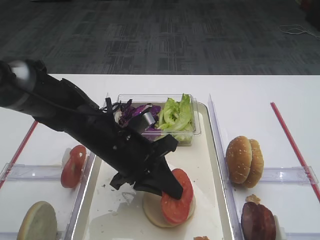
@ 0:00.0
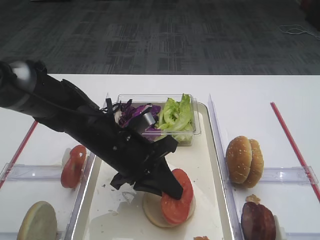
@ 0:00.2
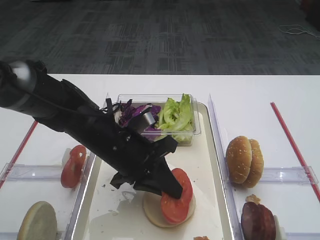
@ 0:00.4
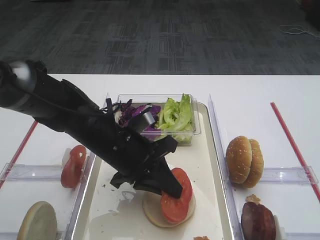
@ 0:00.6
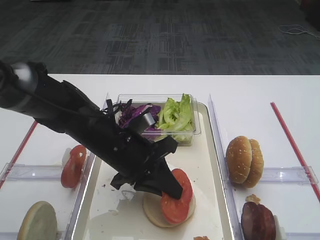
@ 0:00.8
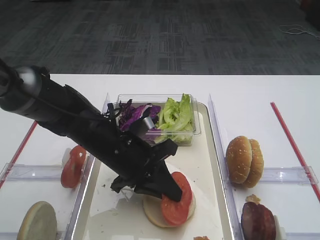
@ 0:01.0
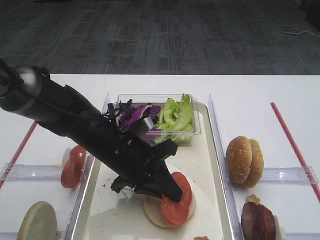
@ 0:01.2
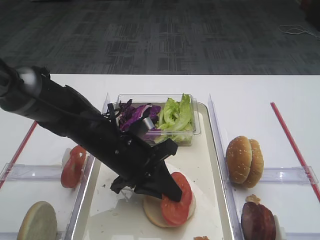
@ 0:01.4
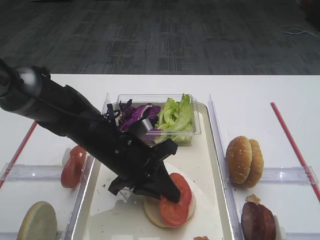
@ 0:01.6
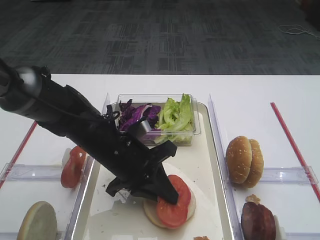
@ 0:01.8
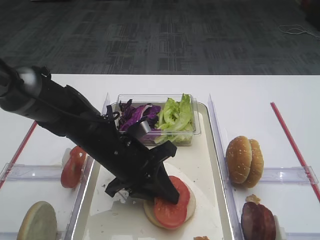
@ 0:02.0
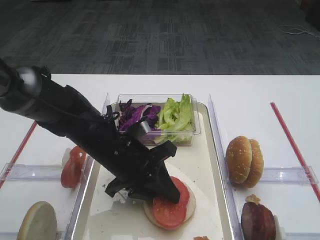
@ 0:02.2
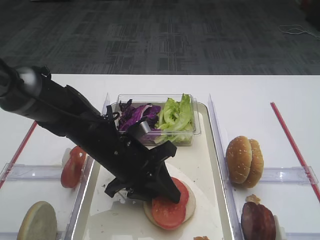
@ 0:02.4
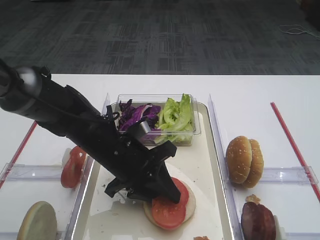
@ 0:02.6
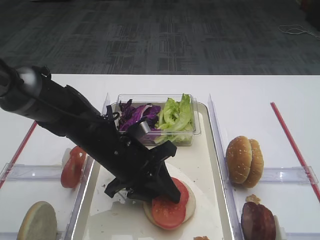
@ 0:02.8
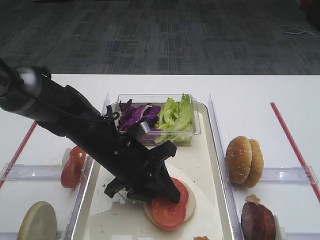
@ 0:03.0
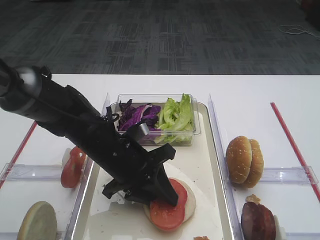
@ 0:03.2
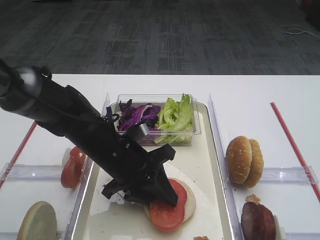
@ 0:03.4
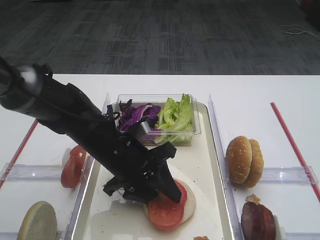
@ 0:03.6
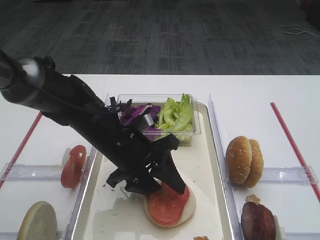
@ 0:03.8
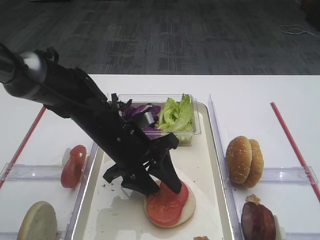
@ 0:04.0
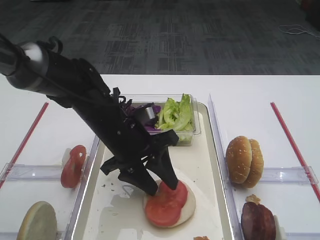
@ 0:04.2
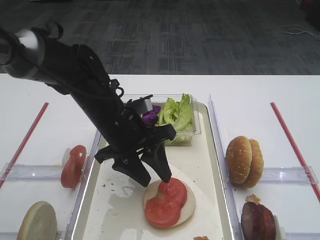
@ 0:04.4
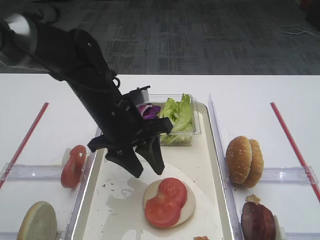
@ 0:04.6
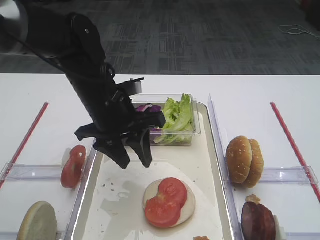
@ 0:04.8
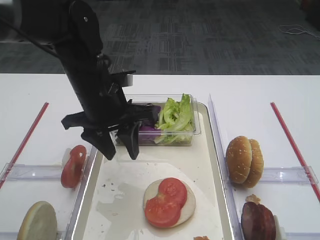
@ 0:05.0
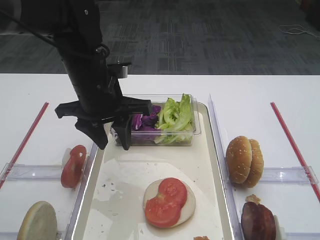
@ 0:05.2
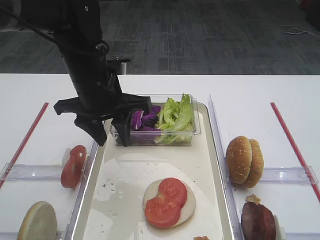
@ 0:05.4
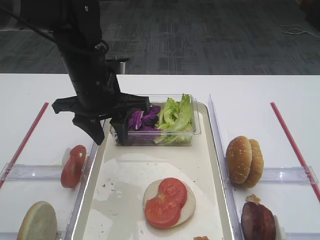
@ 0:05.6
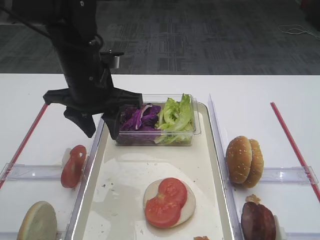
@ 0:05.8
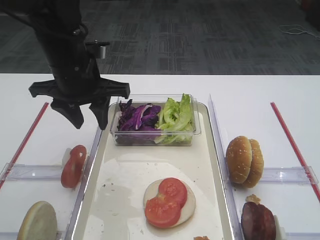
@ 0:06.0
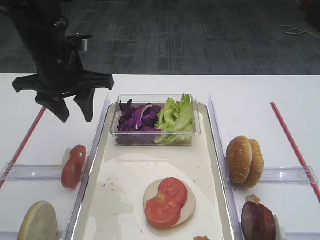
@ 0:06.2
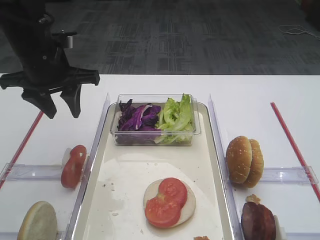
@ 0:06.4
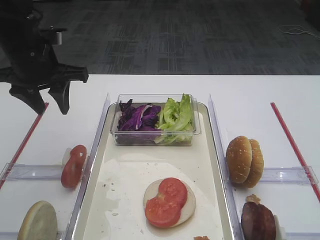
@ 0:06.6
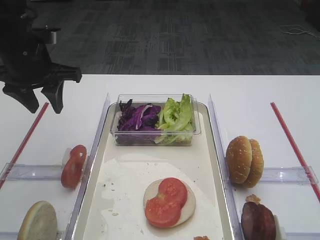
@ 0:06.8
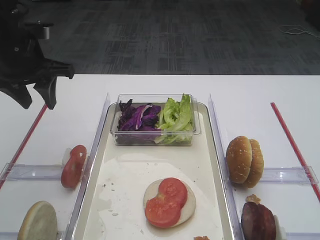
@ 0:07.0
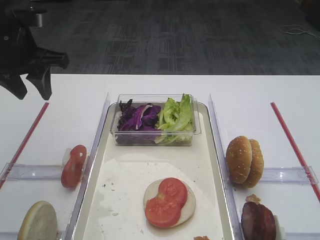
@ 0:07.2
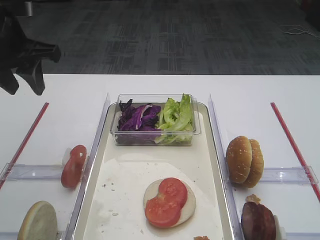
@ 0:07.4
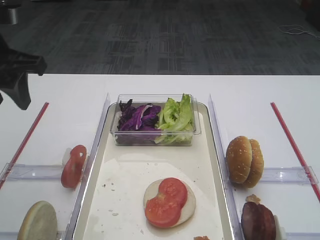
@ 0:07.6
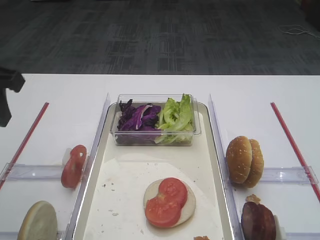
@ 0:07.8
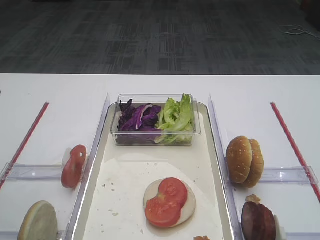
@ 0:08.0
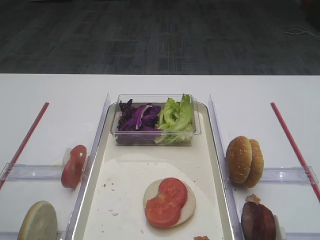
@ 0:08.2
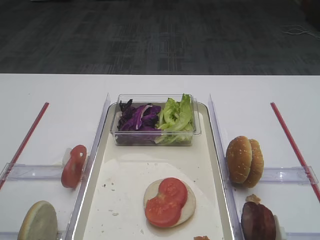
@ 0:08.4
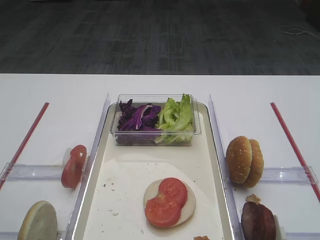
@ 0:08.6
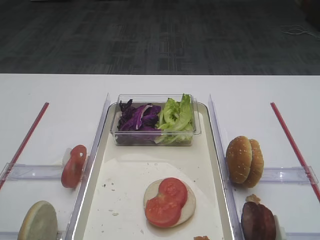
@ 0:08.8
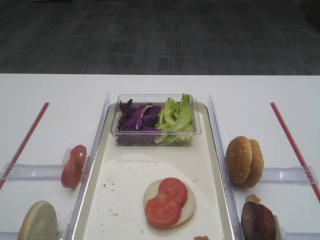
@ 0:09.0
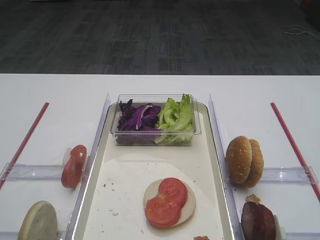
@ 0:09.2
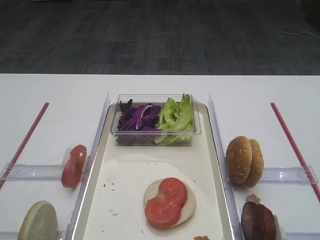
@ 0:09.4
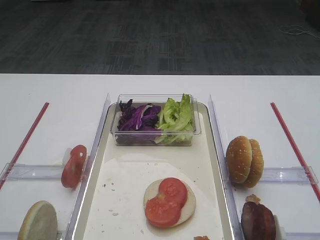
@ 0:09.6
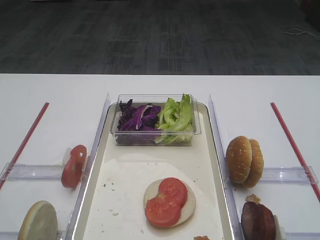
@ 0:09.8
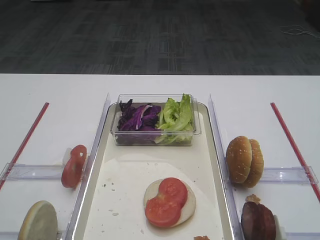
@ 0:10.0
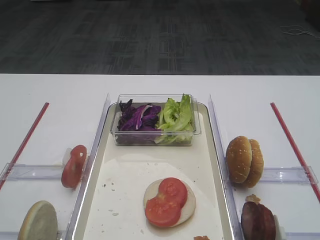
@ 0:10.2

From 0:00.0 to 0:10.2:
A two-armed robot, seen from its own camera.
Step, from 0:00.0 to 0:04.6: Place the tomato slice on the bread slice with the left gripper.
From 0:00.0 to 0:01.4: Both grippers stay put.
From 0:01.4 to 0:03.0: The left gripper opens.
From 0:03.0 to 0:04.4: The left gripper moves approximately 5 cm, and opens.
From 0:04.4 to 0:05.8: The left gripper is displaced upward by approximately 10 cm.
From 0:05.8 to 0:07.2: The left gripper heads to the left, covering some 10 cm.
From 0:07.2 to 0:08.8: The left gripper travels backward by approximately 25 cm.

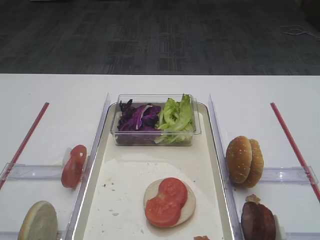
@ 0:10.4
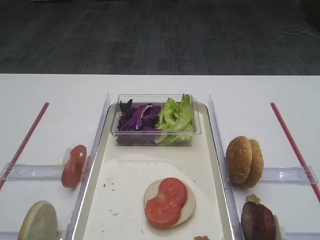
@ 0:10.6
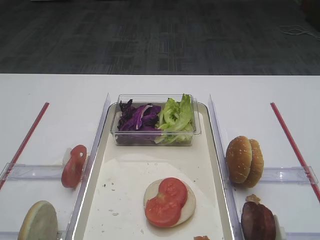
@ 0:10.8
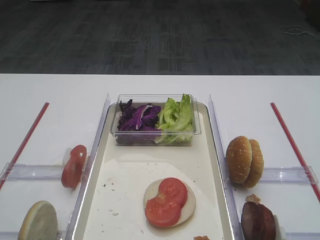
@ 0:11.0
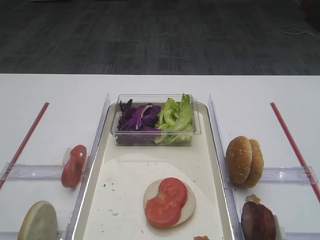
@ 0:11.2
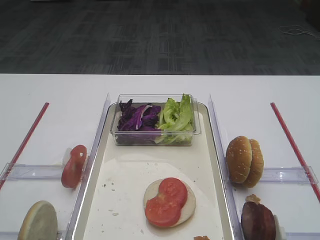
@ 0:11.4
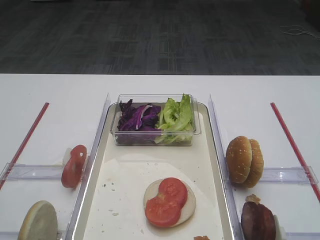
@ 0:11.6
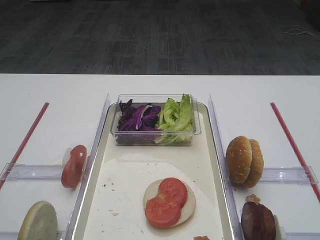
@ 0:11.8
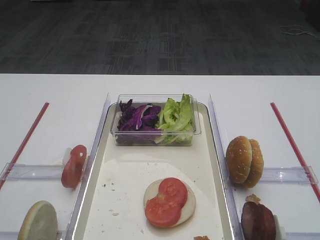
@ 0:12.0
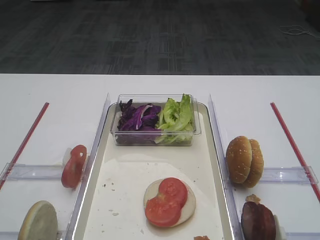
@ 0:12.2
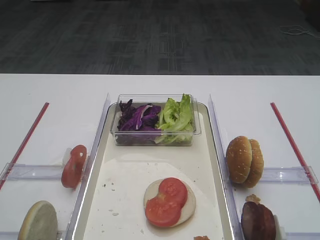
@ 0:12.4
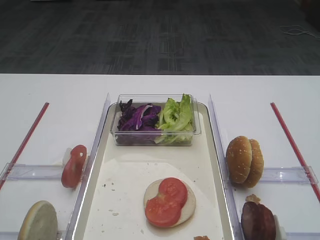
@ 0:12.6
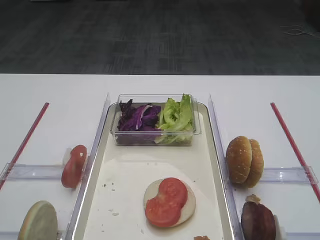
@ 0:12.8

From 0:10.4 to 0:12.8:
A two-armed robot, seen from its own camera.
From 0:10.4 to 0:12.8: The two grippers keep their place.

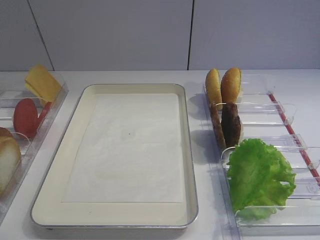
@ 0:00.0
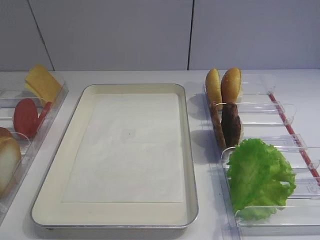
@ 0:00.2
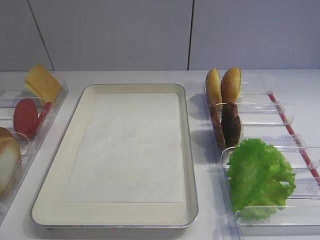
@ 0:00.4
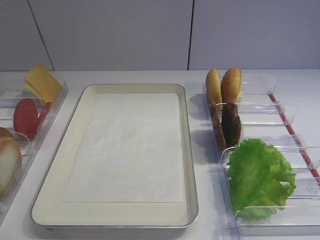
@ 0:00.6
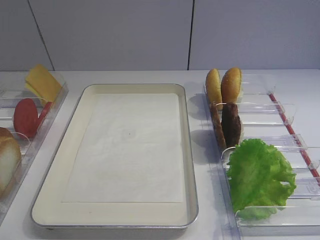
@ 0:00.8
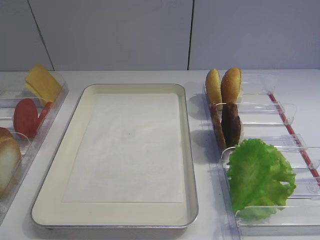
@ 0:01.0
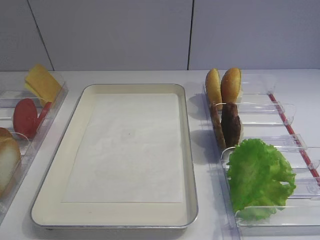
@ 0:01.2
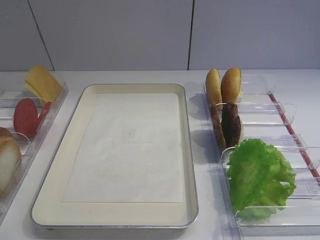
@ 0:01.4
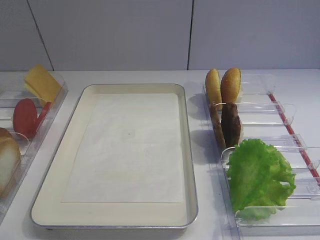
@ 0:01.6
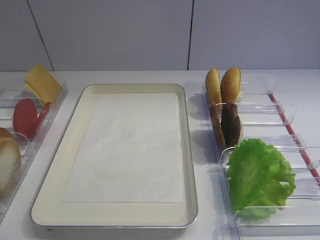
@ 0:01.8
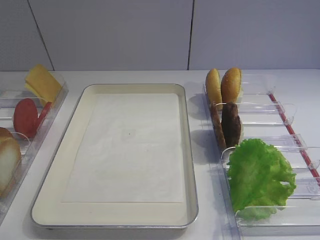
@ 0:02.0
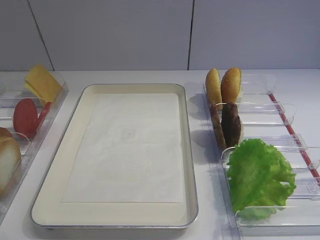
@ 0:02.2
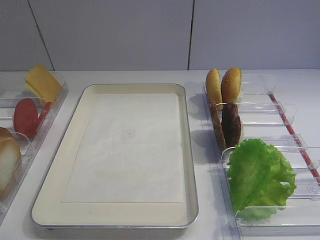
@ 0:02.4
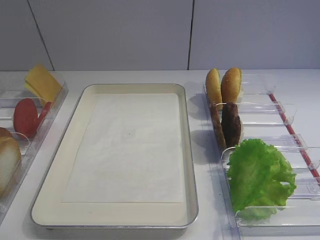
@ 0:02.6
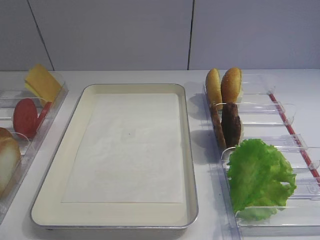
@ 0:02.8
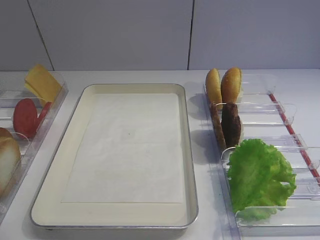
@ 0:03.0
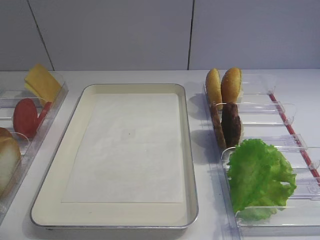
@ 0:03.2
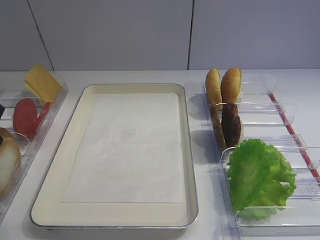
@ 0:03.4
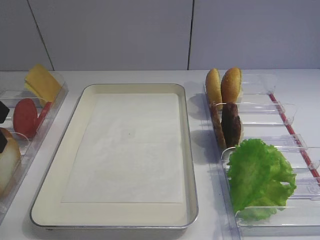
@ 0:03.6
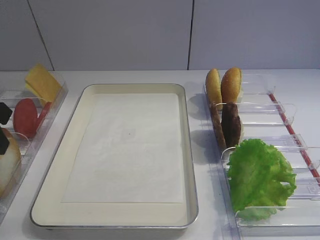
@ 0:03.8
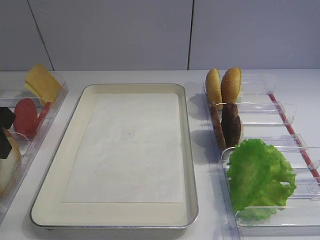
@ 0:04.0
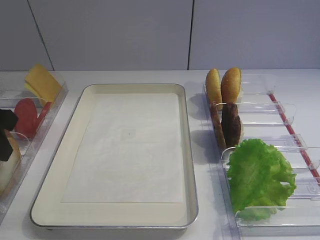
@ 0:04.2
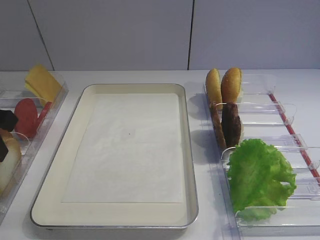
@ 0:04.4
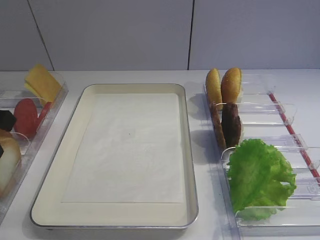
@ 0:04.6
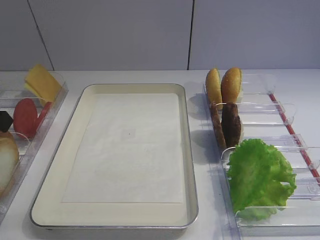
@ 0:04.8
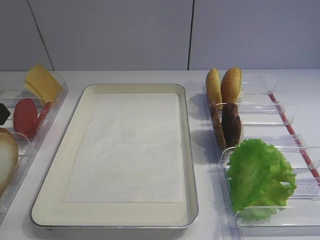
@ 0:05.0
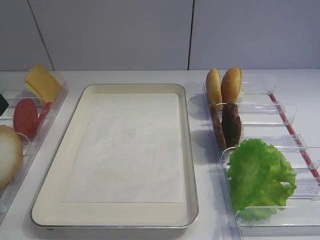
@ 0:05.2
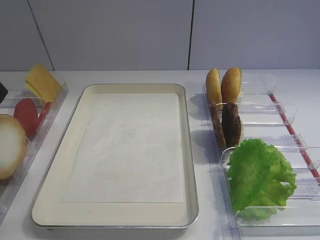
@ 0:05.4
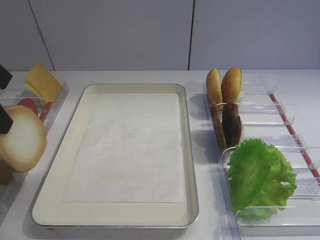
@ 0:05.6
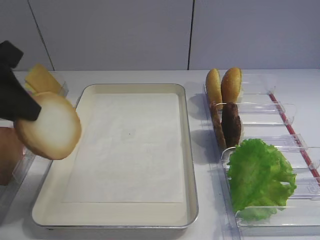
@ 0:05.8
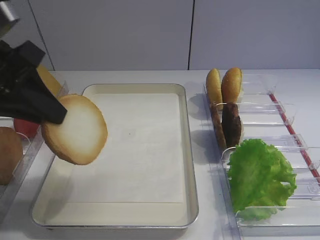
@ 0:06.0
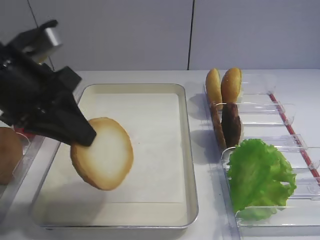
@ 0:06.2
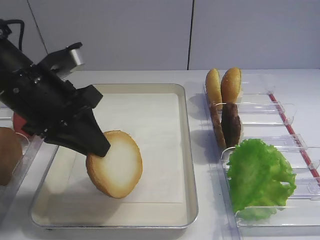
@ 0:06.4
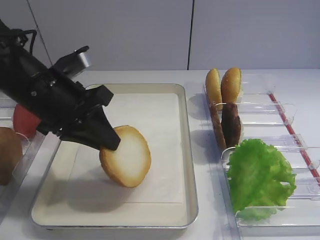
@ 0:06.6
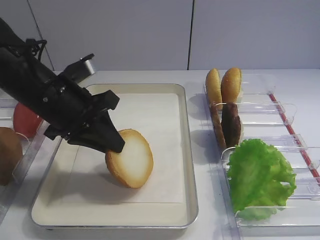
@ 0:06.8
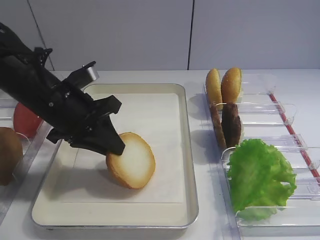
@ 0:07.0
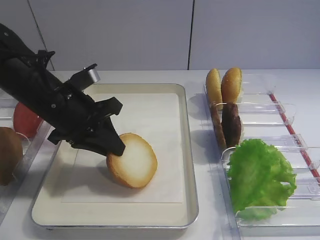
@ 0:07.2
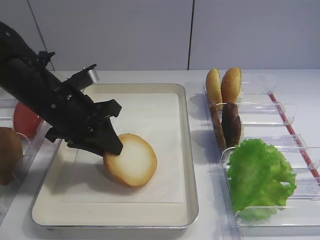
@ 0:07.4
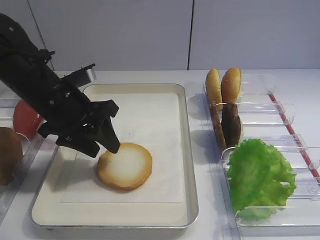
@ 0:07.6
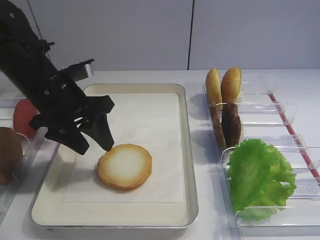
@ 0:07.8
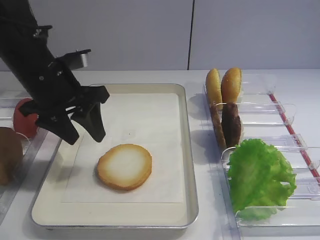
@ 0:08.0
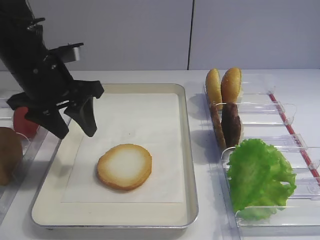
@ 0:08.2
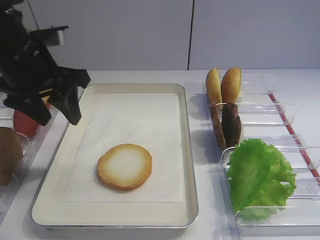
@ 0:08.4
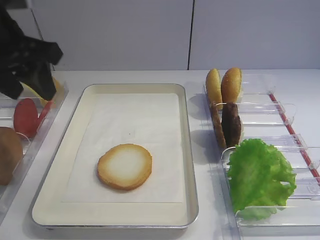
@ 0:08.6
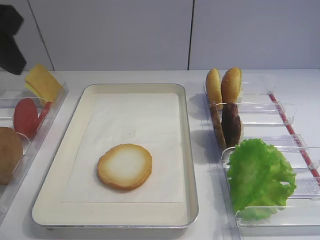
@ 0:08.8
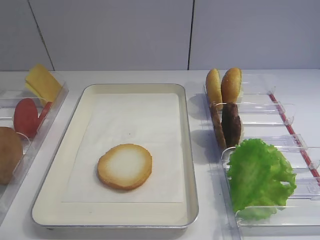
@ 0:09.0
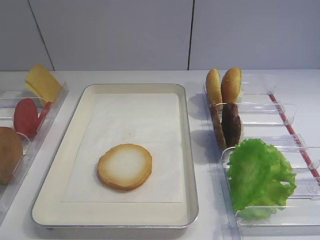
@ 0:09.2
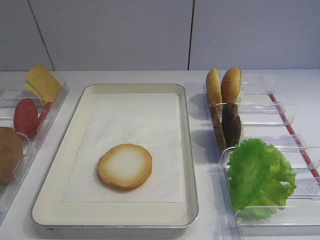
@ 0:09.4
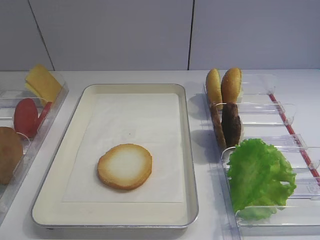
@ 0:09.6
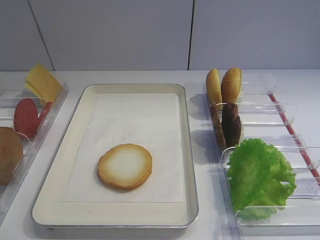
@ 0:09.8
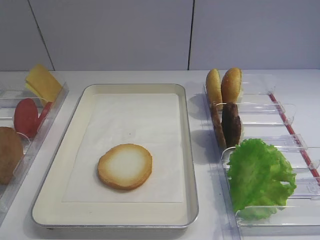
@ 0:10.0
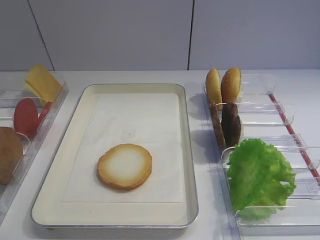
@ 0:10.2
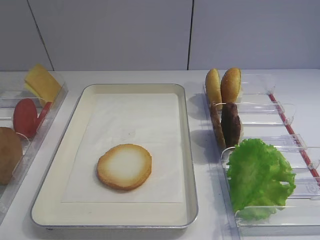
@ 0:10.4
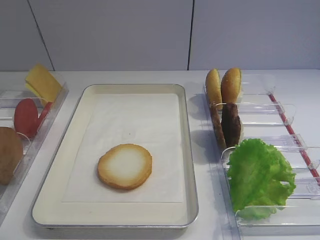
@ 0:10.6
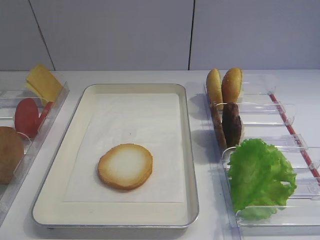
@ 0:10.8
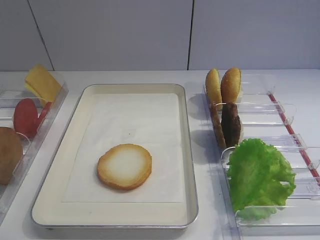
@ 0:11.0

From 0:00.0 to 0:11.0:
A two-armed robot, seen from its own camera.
Step, from 0:00.0 to 0:05.4: Pick up the bread slice with the left gripper.
Step, from 0:05.6 to 0:08.0: Place the bread slice on the tray with the left gripper.
From 0:04.8 to 0:06.2: The left gripper shifts about 10 cm to the right.
From 0:06.2 to 0:07.8: The left gripper travels downward and forward by about 10 cm, and opens up.
From 0:07.8 to 0:09.4: The left gripper shifts some 30 cm backward, upward and to the left.
